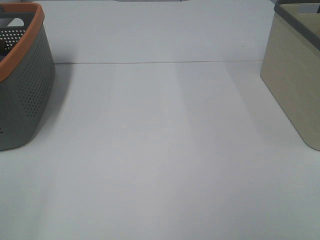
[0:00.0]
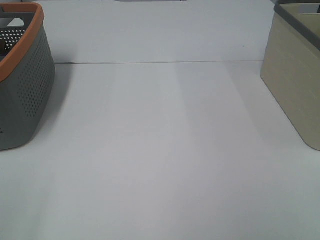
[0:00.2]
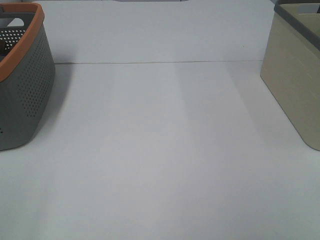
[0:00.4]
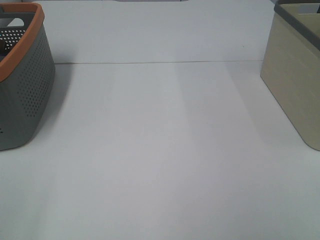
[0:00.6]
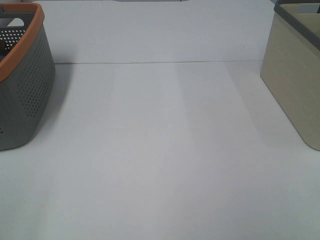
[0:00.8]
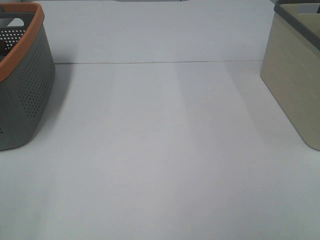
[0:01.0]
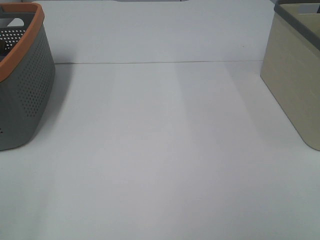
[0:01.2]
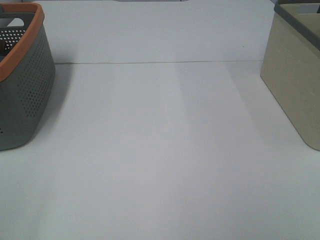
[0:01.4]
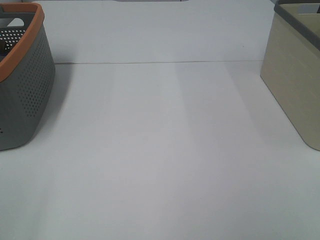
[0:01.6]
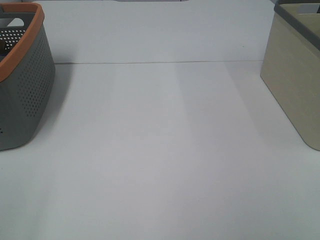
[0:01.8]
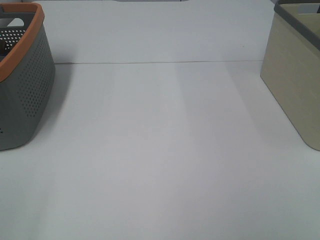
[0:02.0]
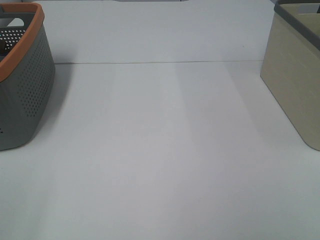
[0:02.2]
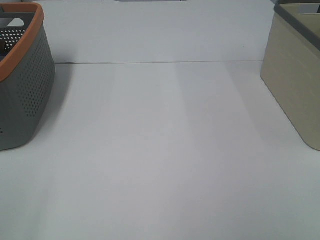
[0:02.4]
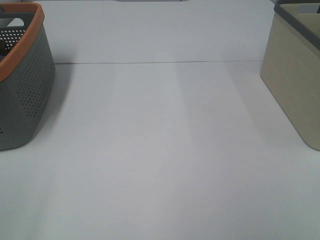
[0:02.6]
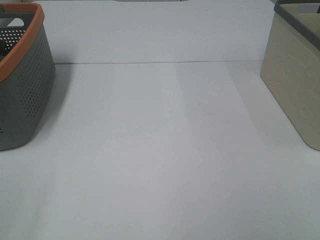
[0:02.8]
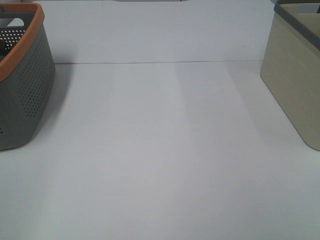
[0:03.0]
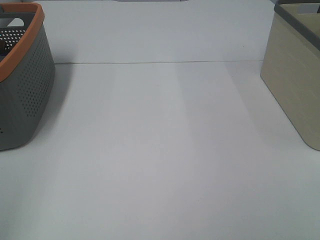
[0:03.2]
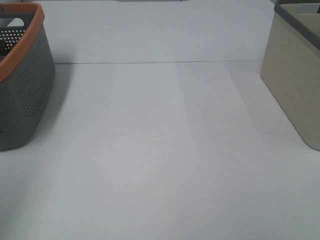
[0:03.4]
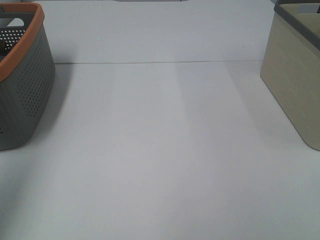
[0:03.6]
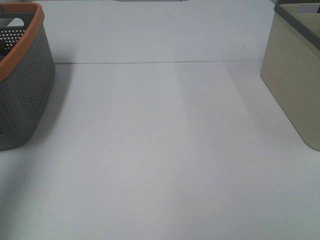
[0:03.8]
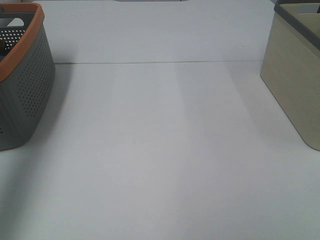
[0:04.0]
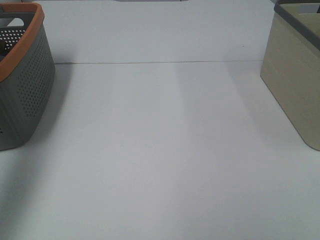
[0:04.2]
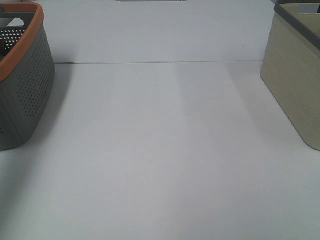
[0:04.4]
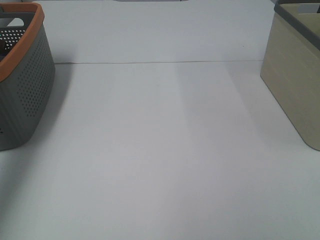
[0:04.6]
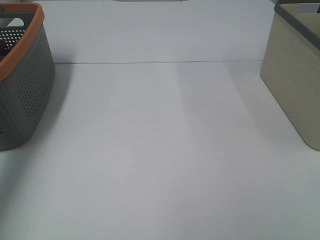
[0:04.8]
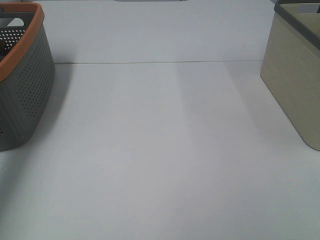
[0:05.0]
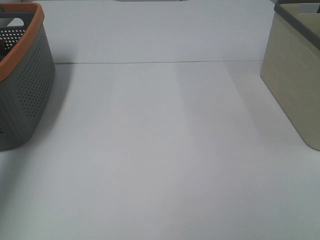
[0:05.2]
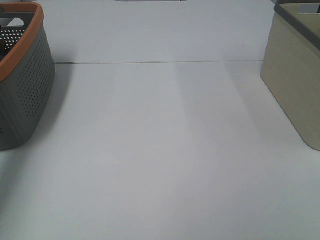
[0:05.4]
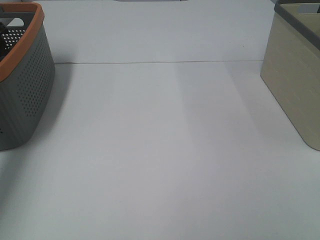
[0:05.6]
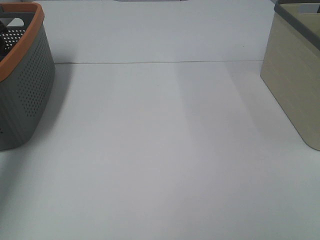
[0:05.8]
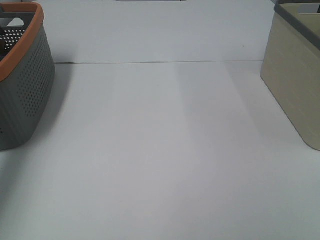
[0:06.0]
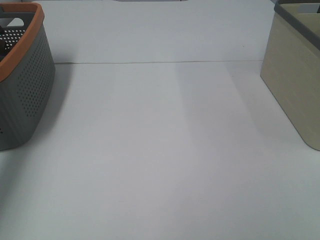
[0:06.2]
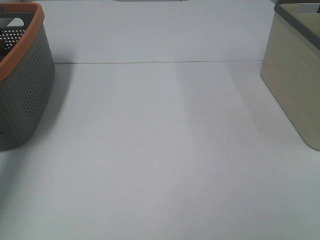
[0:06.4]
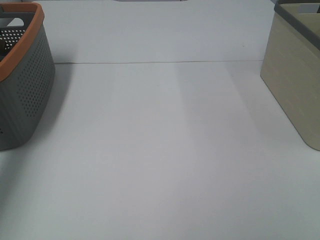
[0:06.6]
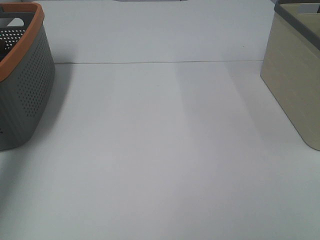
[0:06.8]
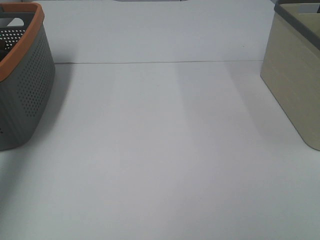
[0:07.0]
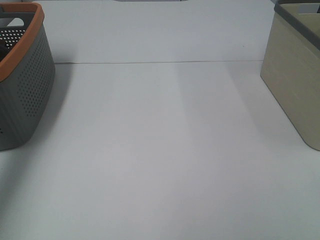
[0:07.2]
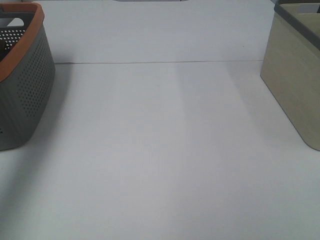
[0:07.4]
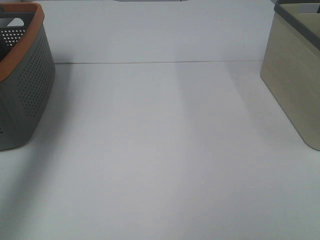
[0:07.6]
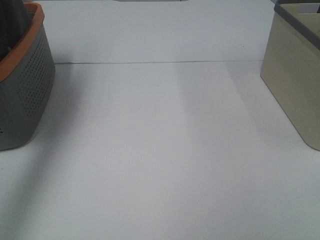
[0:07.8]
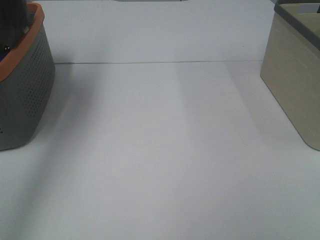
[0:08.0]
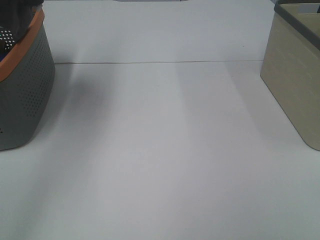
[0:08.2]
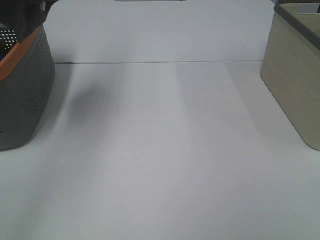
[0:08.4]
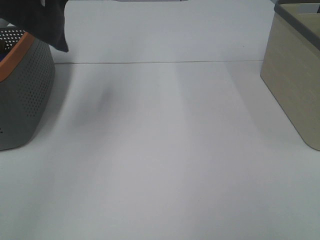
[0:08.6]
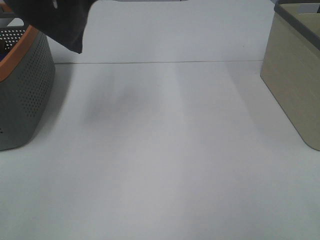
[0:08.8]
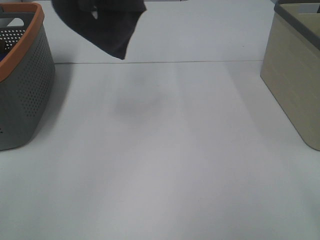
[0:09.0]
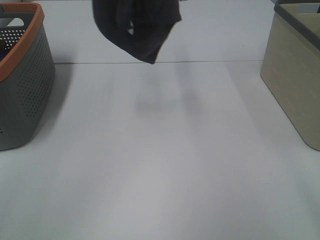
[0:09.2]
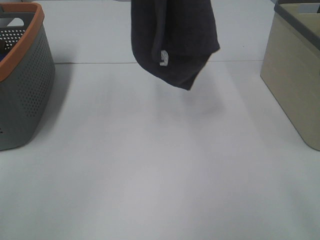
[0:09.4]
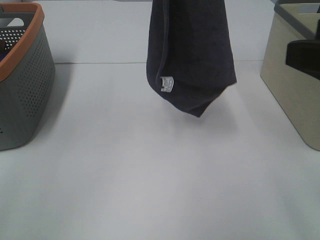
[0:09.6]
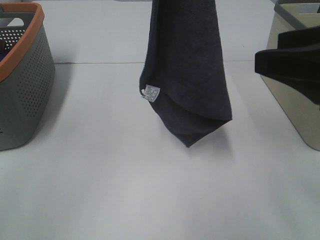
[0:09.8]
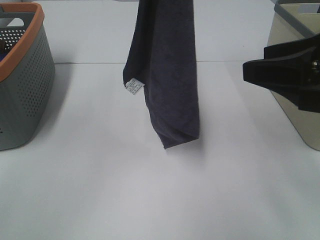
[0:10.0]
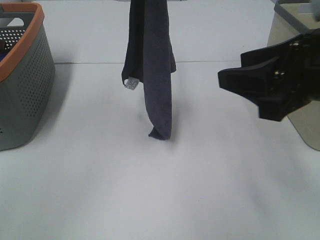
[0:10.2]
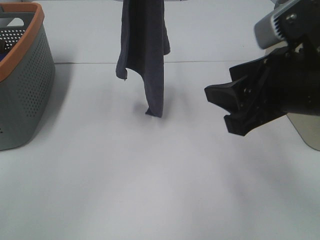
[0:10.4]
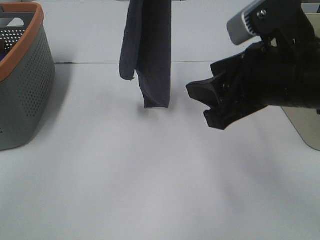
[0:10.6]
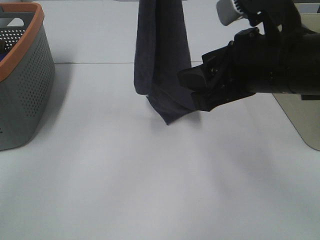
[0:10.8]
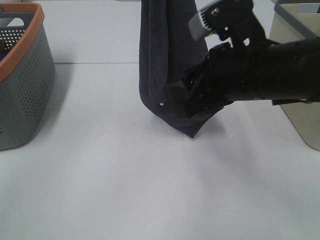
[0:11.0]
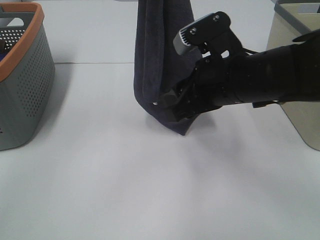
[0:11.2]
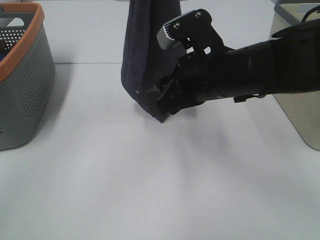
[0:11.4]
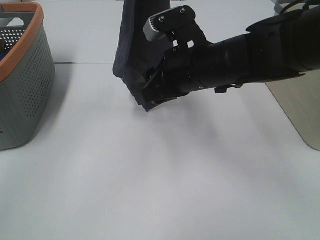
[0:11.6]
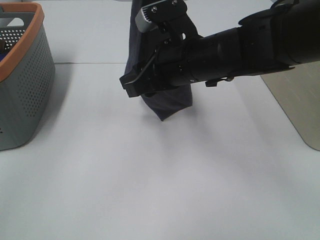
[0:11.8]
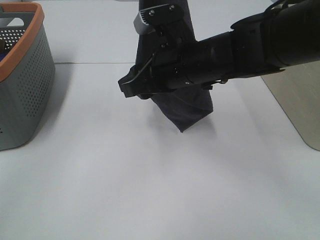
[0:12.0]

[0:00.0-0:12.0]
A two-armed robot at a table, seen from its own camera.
Task of the whole recording: Remove the towel and place it.
0:00.0 to 0:01.6: Neither gripper changes place.
0:03.0 to 0:04.4: The left gripper shifts about 30 cm forward.
0:06.0 to 0:07.6: The left gripper shifts roughly 25 cm upward, and closes up.
0:07.6 to 0:09.0: The left gripper is displaced to the right and upward by about 20 cm. Meanwhile the right gripper moves forward, some 5 cm.
0:09.0 to 0:10.4: The right gripper travels forward, to the left and downward by about 20 cm. Meanwhile the left gripper travels downward by approximately 10 cm.
0:10.4 to 0:12.0: The right gripper travels to the left, forward and downward by about 15 cm.

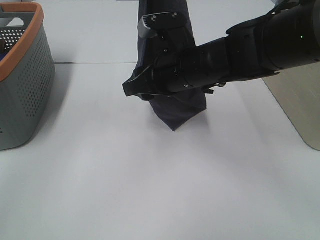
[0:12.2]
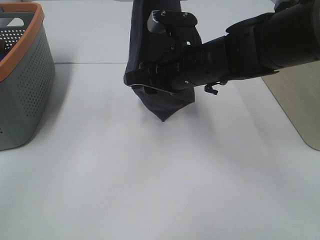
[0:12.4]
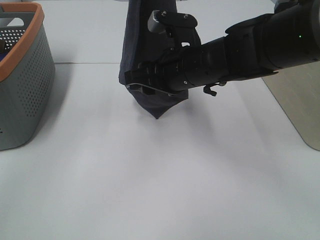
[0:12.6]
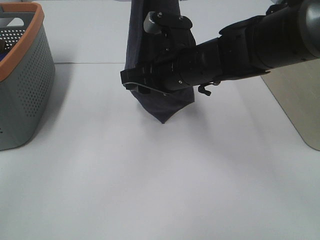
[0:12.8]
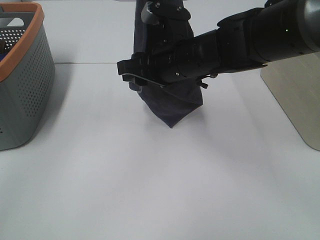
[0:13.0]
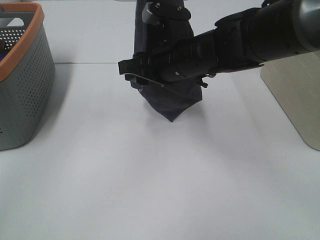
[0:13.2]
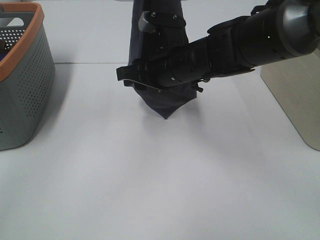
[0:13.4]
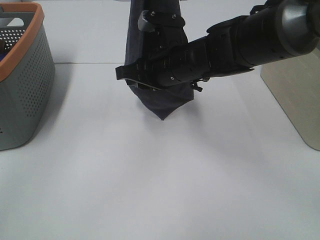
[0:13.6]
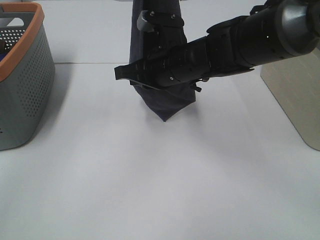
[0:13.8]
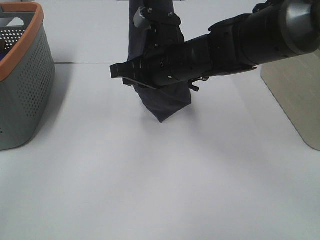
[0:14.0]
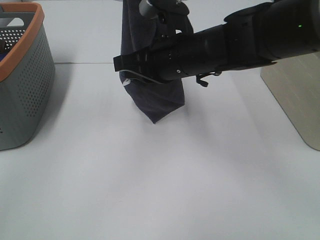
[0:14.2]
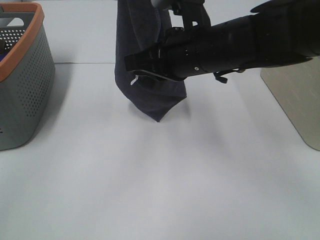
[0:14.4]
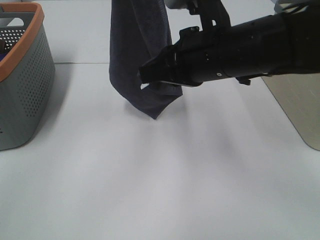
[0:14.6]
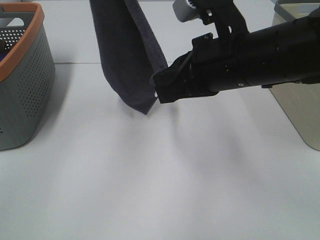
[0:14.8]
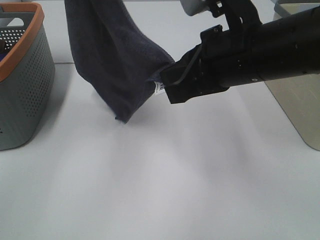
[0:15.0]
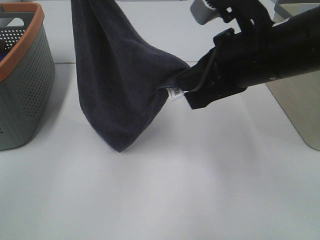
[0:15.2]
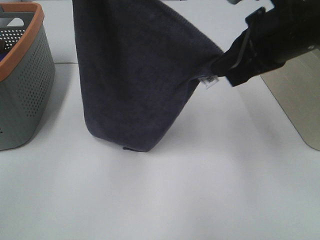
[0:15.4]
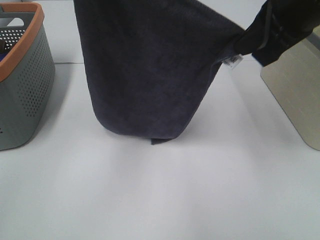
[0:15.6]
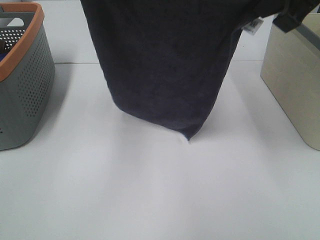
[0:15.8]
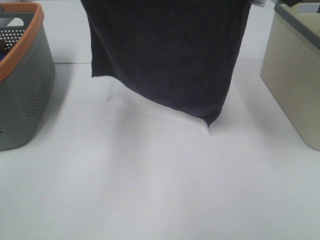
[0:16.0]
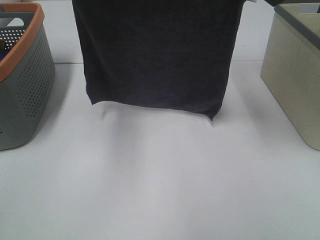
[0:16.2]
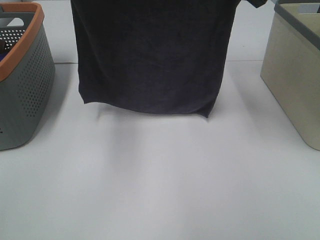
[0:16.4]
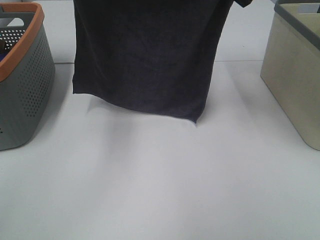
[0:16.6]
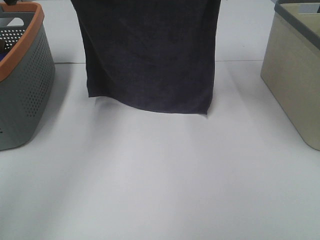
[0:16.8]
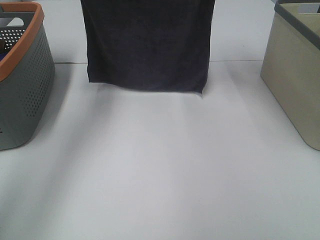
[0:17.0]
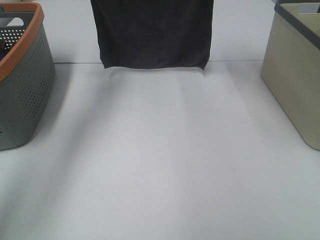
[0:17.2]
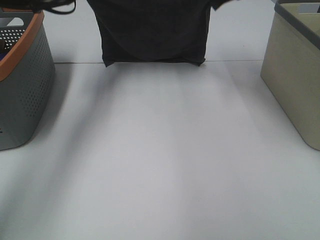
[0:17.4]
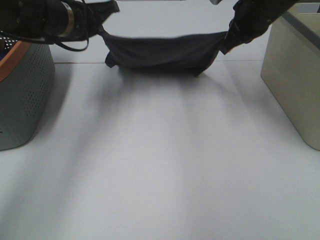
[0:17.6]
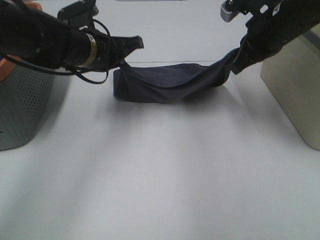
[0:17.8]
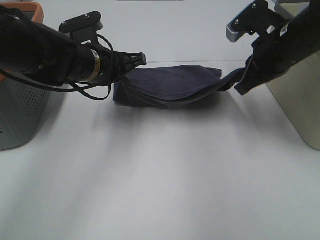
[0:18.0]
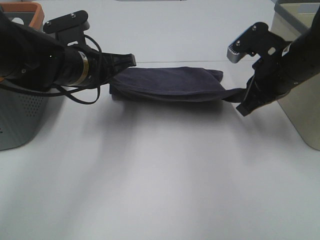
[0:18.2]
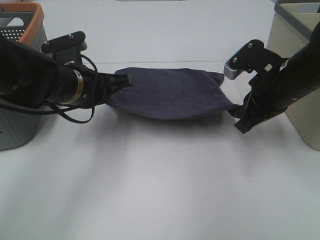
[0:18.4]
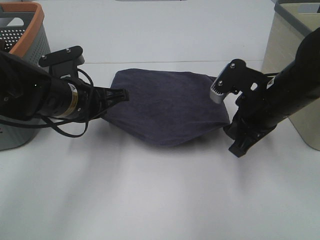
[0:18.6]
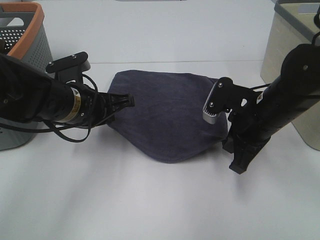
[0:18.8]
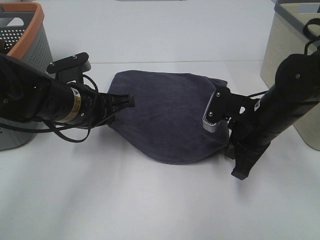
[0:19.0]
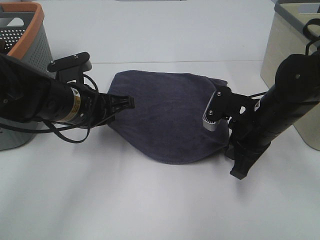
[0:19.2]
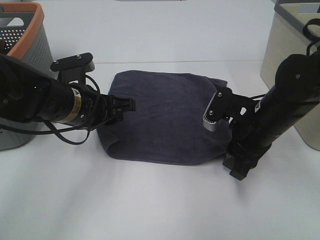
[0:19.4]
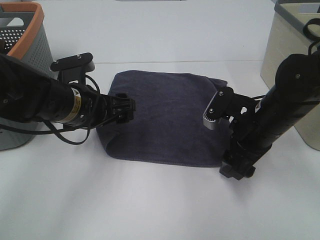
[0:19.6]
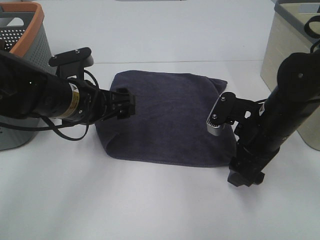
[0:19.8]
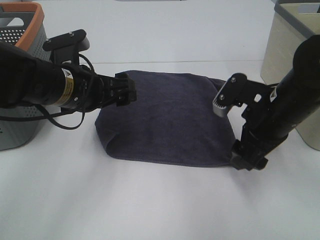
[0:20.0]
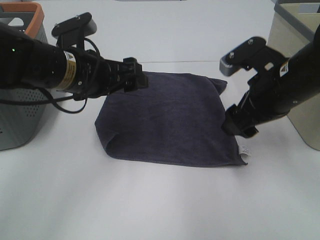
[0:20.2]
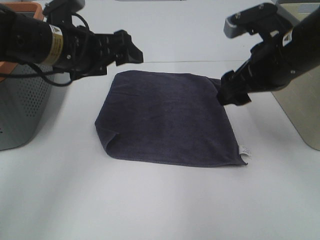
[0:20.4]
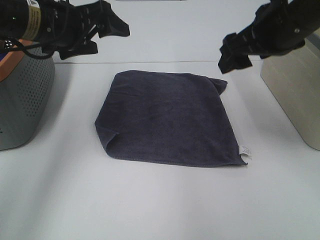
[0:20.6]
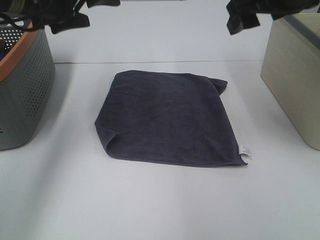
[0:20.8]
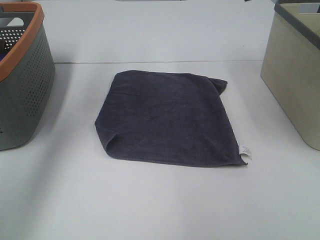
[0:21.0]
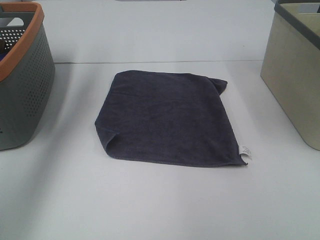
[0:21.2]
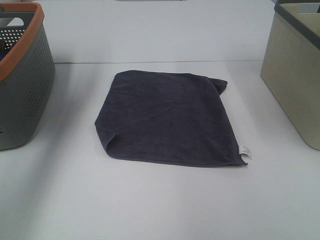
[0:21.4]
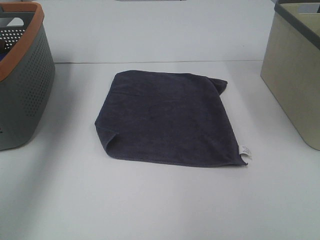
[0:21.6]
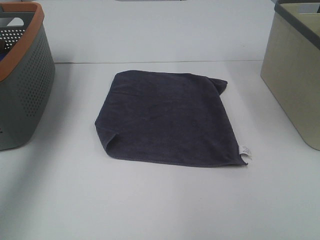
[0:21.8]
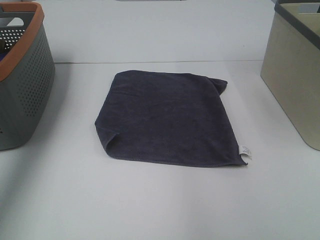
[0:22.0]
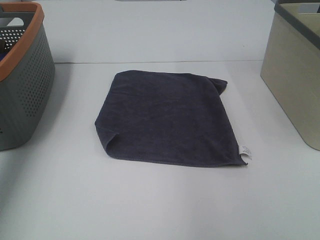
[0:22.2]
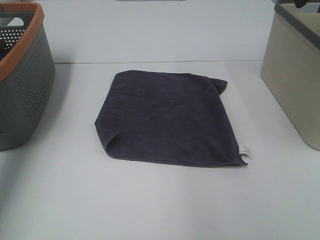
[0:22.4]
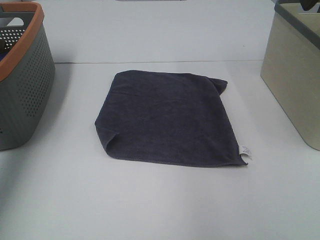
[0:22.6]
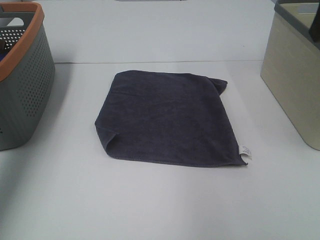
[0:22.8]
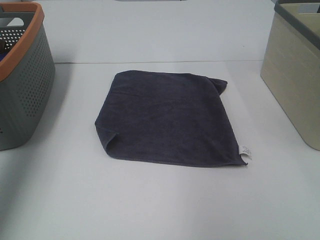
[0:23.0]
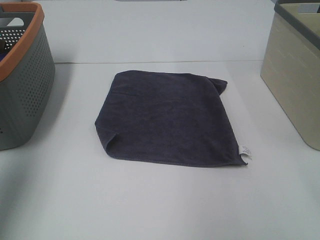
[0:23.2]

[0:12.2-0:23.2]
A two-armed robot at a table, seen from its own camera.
Task of the whole recording: Remove the towel and place it.
Step, 0:13.2 to 0:15.8: Left hand: spread the grey towel flat on the table.
Step, 0:13.2 to 0:15.8: Right hand: spread the grey towel flat on the table.
0:12.2 to 0:13.8: The right gripper closes.
0:13.8 to 0:15.4: The left gripper is displaced to the left by some 5 cm; the right gripper is displaced to the right, upward and backward by about 20 cm.
0:15.4 to 0:17.0: The left gripper goes some 15 cm forward, downward and to the left. Meanwhile the right gripper is displaced forward by roughly 20 cm.
0:17.0 to 0:18.4: Both grippers move downward and backward, about 20 cm.
0:18.4 to 0:20.0: The right gripper opens its fingers; the left gripper opens its fingers.
0:20.0 to 0:21.6: The right gripper moves upward, some 20 cm. The left gripper moves upward, to the left and forward, some 25 cm.
0:21.6 to 0:23.2: The right gripper shifts some 15 cm backward and to the right, while the left gripper shifts some 20 cm backward.
